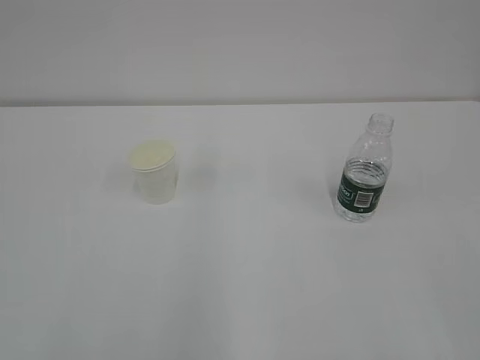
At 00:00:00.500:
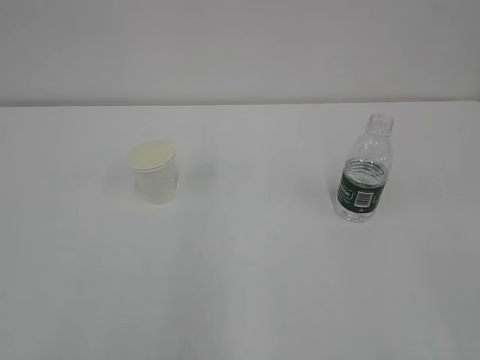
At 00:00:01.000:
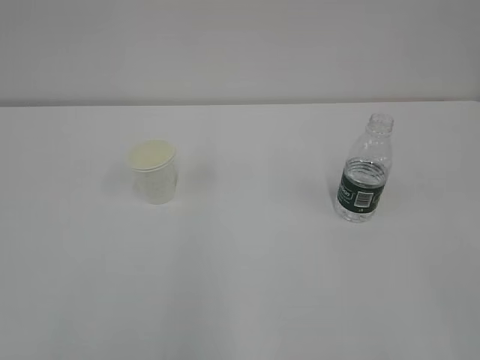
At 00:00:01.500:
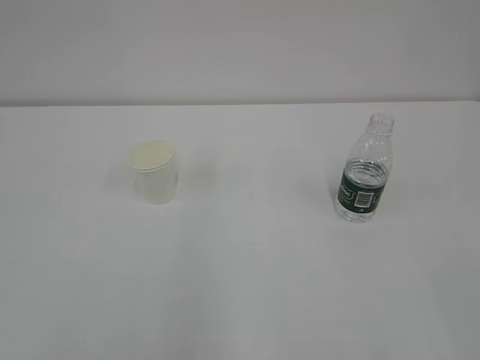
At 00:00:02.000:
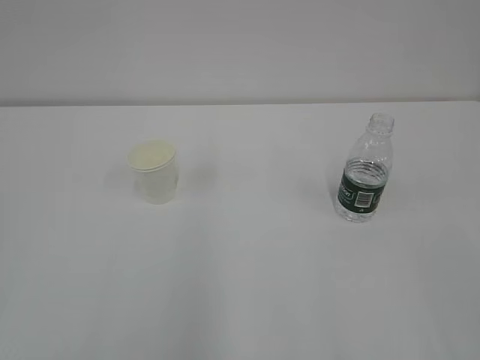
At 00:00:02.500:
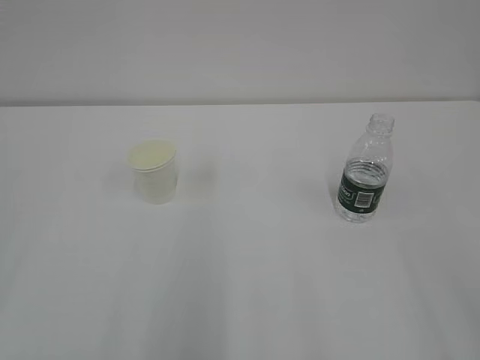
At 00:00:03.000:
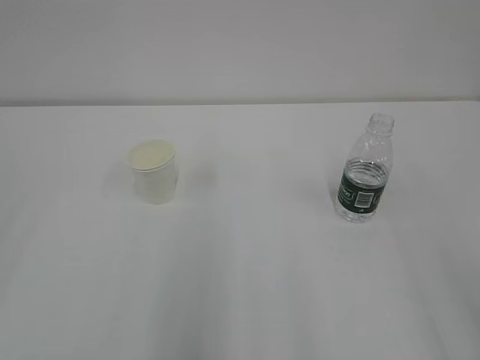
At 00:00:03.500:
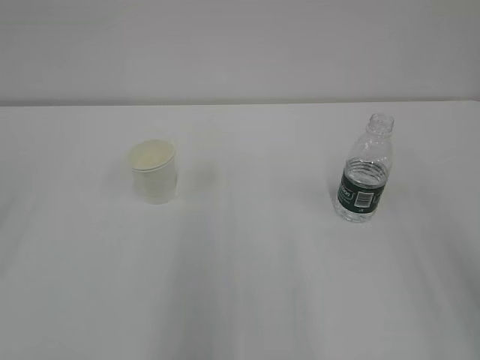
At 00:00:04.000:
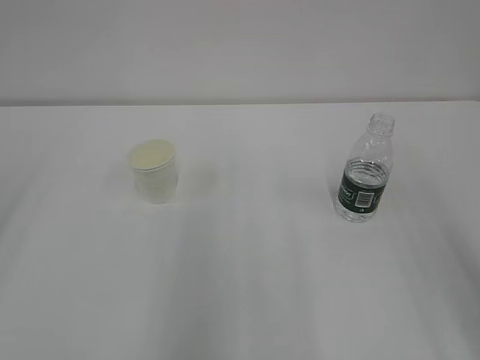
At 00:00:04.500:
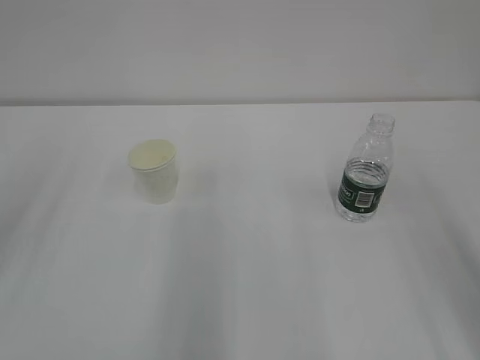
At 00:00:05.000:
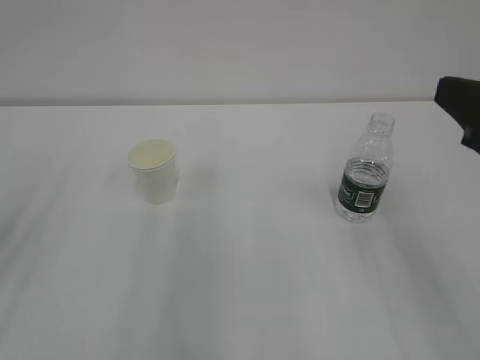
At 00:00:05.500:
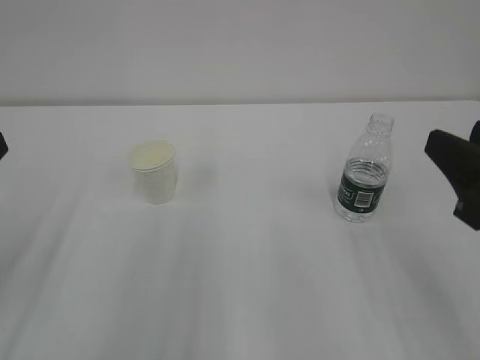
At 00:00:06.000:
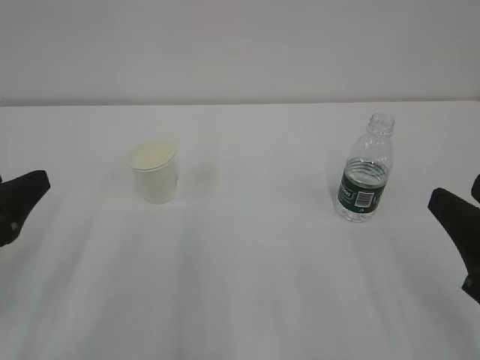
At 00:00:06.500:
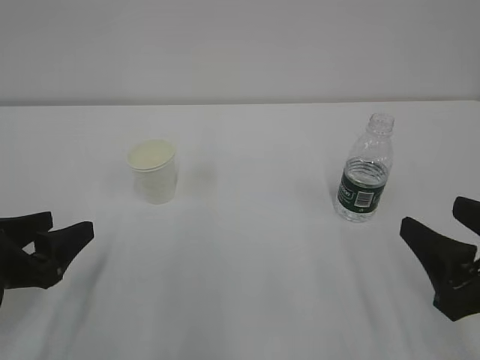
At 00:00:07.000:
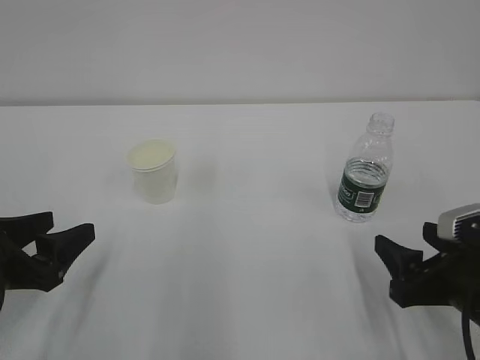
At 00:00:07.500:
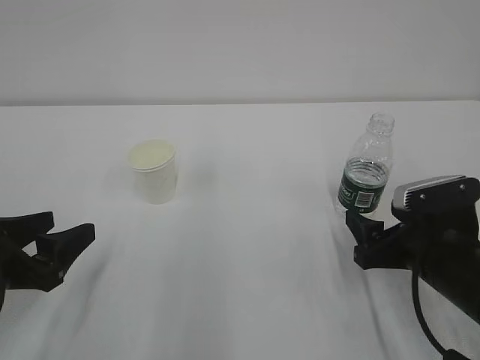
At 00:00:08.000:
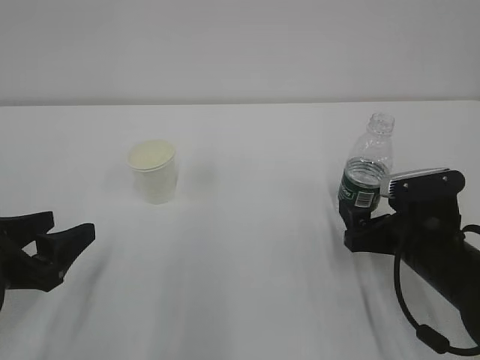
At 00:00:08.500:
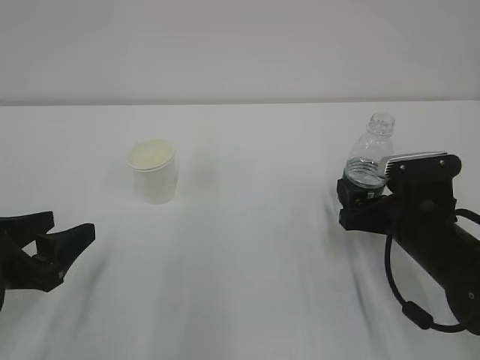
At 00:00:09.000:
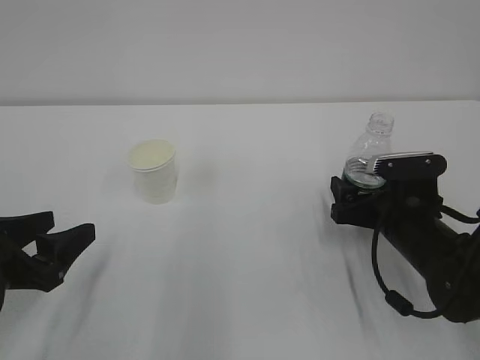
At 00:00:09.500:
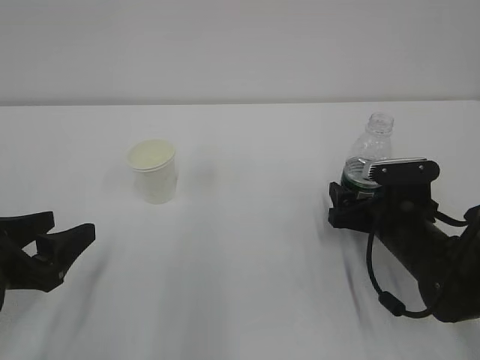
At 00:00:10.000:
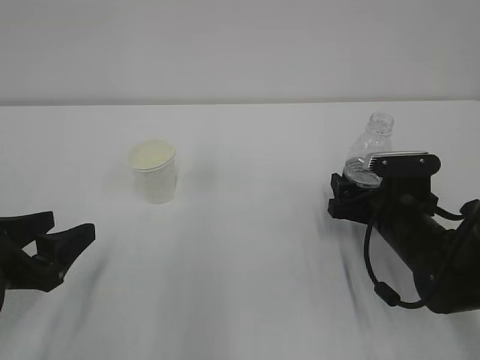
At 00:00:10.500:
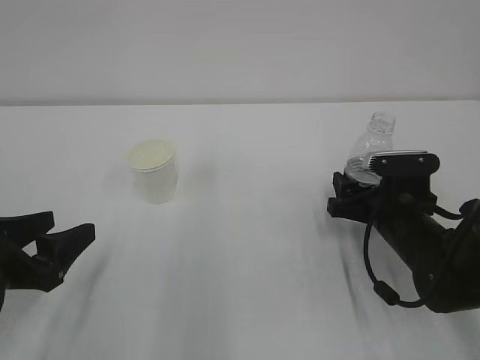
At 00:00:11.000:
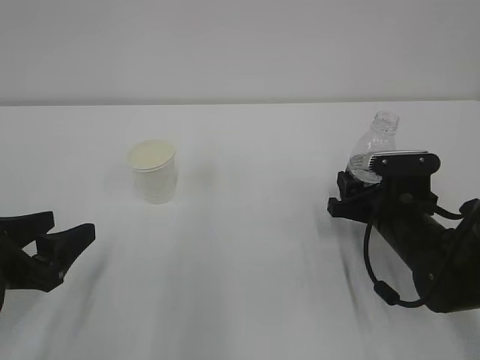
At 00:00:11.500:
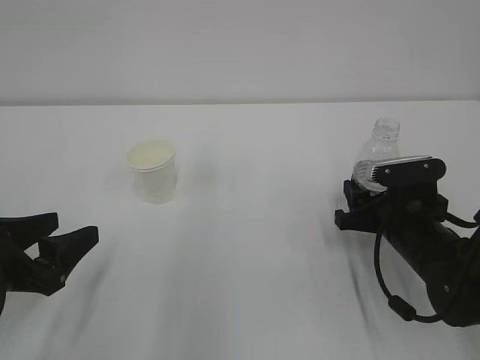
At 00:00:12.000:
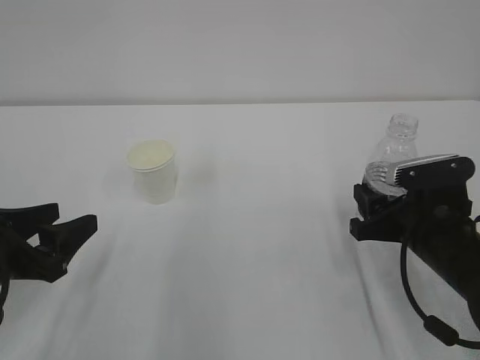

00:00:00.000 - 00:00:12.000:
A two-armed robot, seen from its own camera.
00:00:04.000 - 00:00:06.000: Both grippers travel together downward, about 15 cm. The left gripper opens up.
00:00:06.000 - 00:00:08.000: The right gripper heads forward and downward, covering roughly 20 cm, and opens; the left gripper is displaced downward by roughly 5 cm.
00:00:08.000 - 00:00:10.000: The right gripper heads forward, covering about 5 cm.
00:00:10.000 - 00:00:12.000: The right gripper moves approximately 5 cm, and closes up.

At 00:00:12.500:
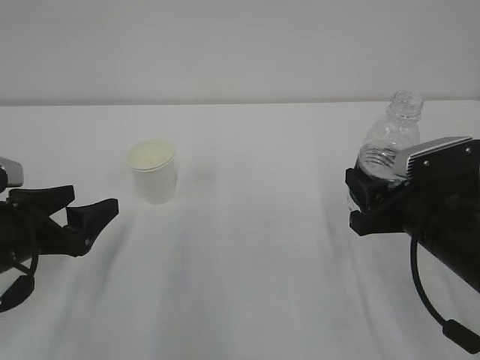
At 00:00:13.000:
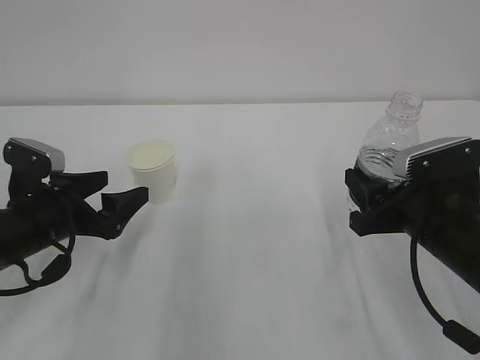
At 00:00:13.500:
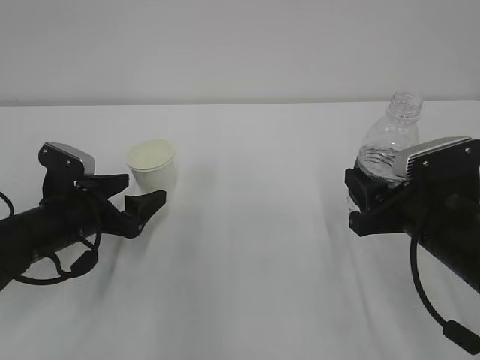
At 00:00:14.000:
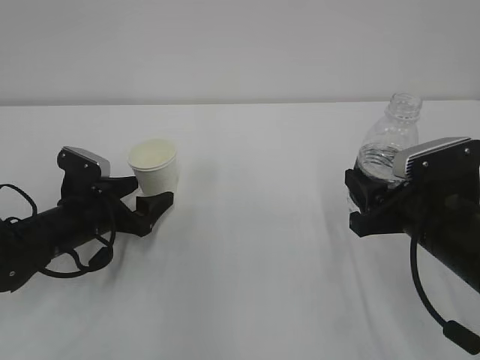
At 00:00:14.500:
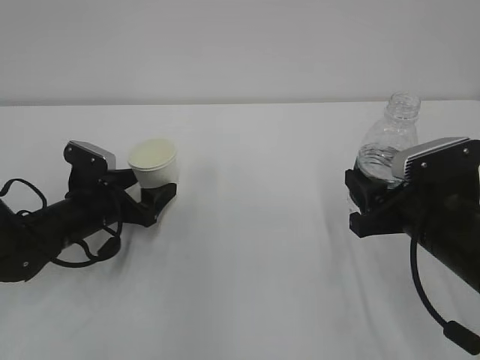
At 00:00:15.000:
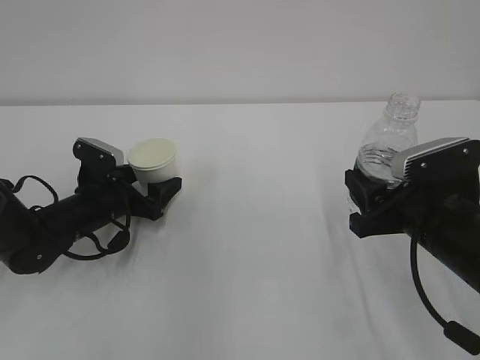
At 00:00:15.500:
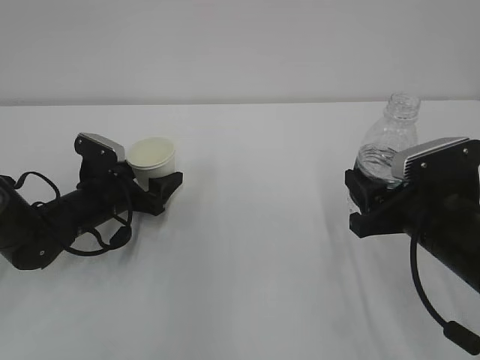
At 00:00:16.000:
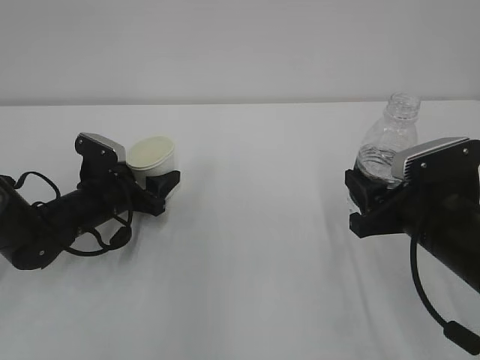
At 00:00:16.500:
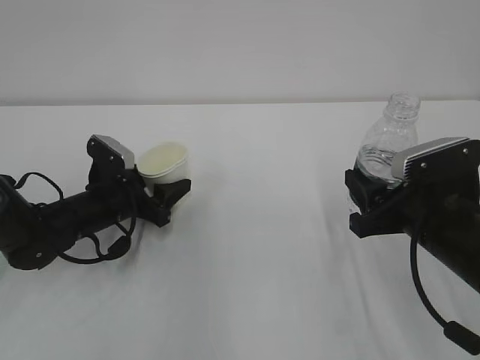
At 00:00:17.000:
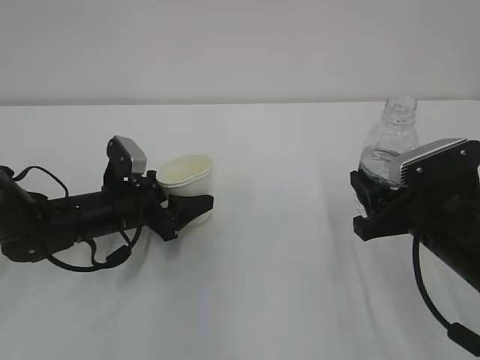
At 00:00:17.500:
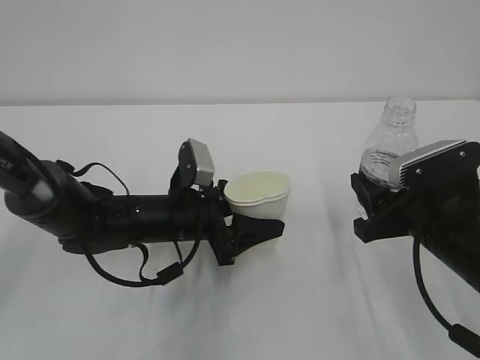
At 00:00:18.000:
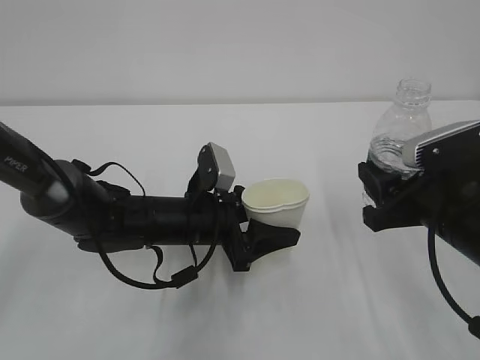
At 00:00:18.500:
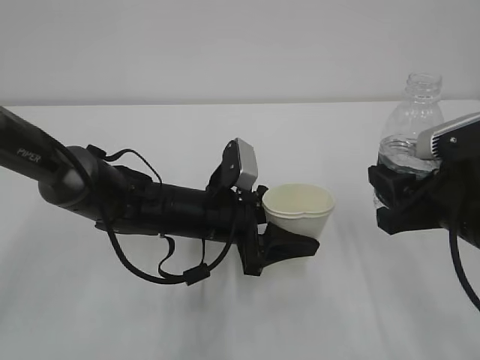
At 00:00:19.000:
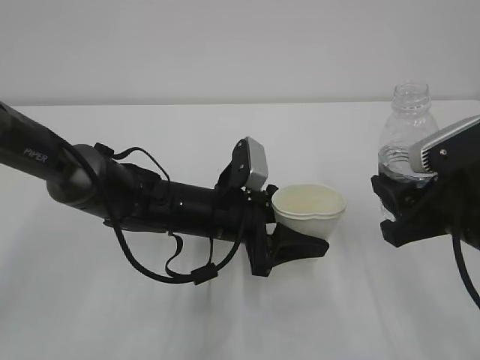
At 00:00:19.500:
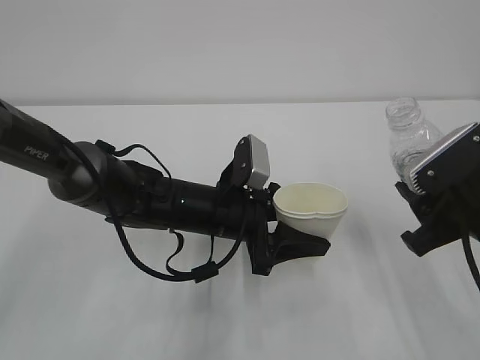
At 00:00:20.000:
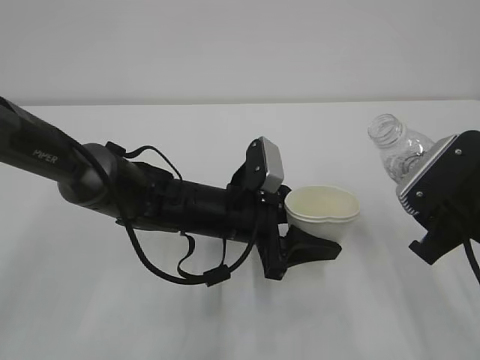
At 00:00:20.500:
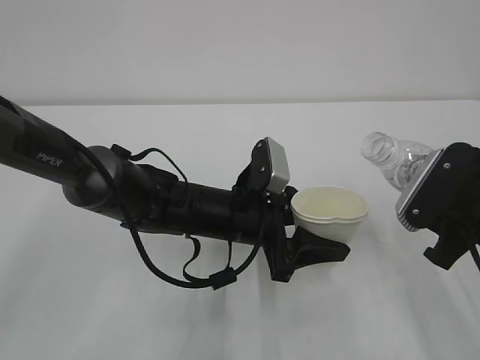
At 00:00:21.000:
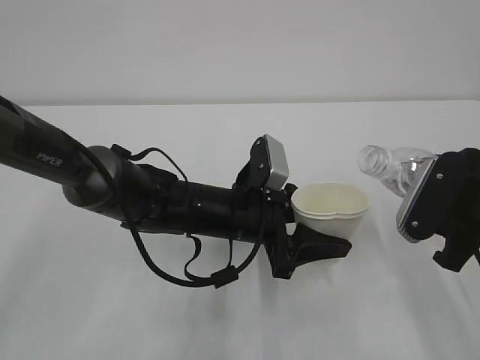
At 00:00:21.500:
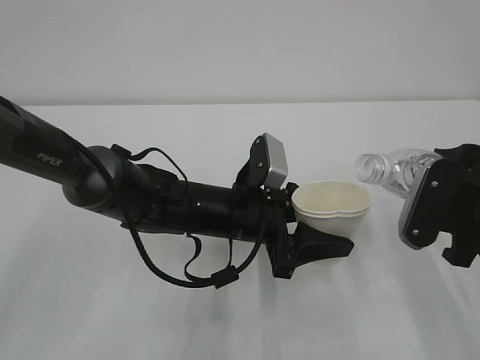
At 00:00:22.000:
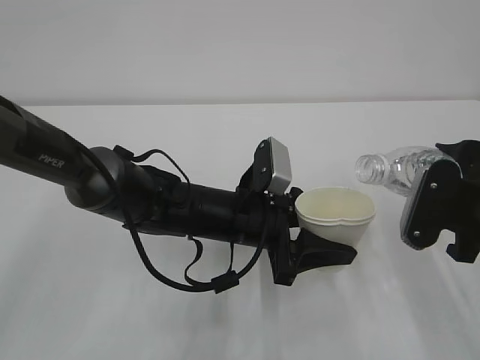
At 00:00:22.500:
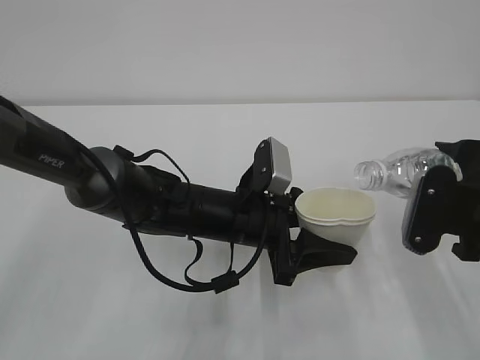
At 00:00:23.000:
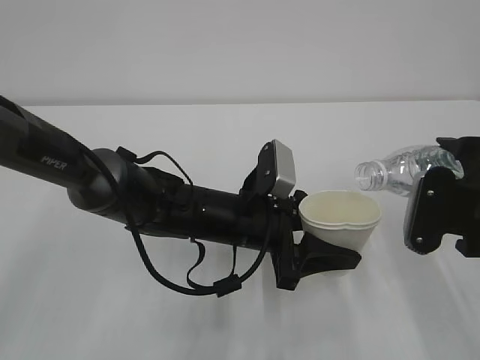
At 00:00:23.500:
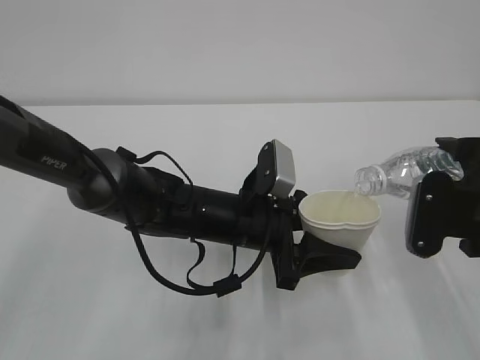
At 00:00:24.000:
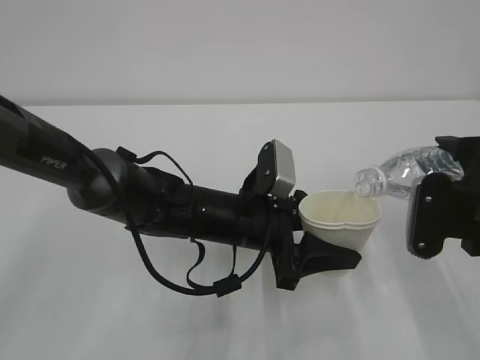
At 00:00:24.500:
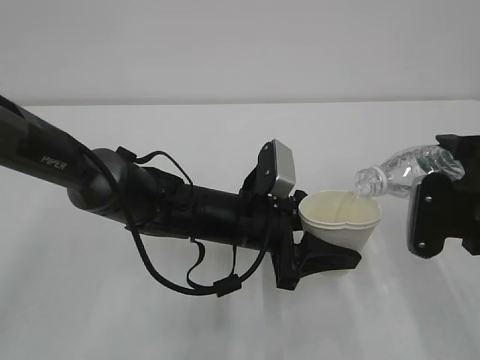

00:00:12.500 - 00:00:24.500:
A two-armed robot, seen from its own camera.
00:00:12.500 - 00:00:14.500: The left gripper travels forward and downward by approximately 15 cm.
00:00:14.500 - 00:00:16.500: The left gripper closes.
00:00:16.500 - 00:00:18.500: The right gripper changes place by about 5 cm; the left gripper heads to the right, covering roughly 15 cm.
00:00:22.500 - 00:00:24.500: The grippers make only small movements.

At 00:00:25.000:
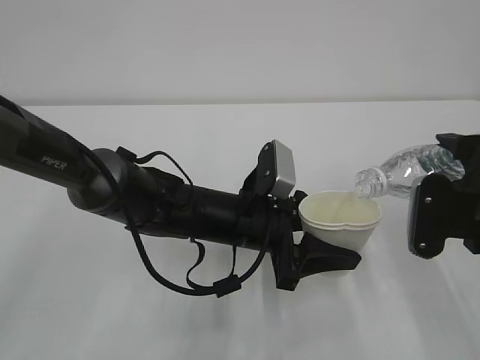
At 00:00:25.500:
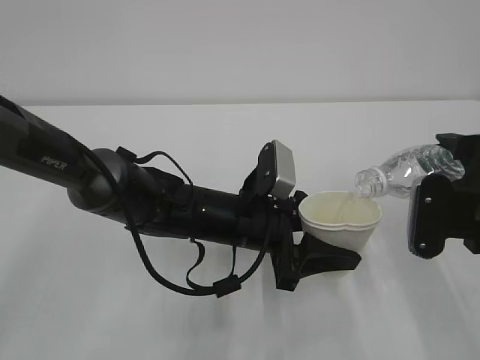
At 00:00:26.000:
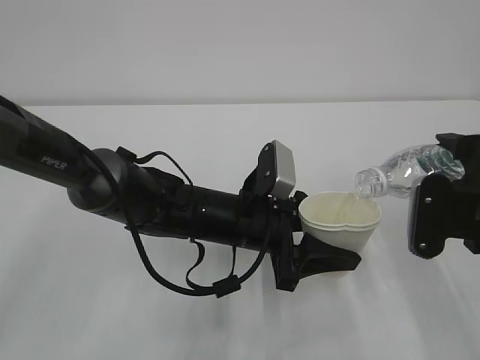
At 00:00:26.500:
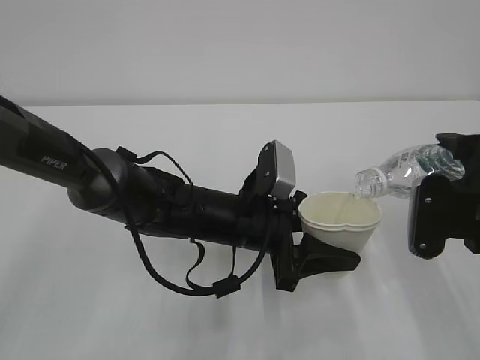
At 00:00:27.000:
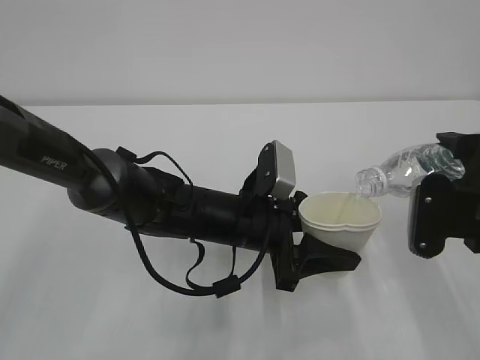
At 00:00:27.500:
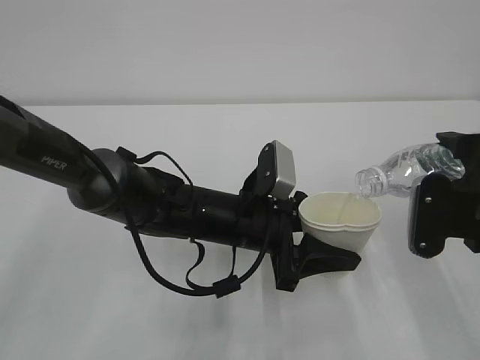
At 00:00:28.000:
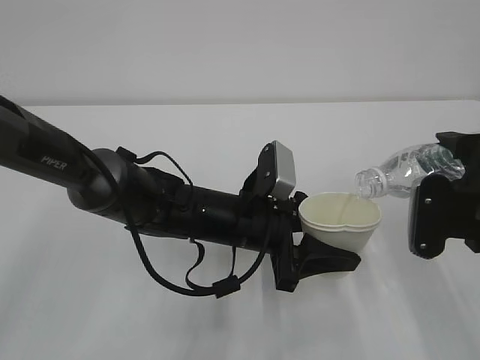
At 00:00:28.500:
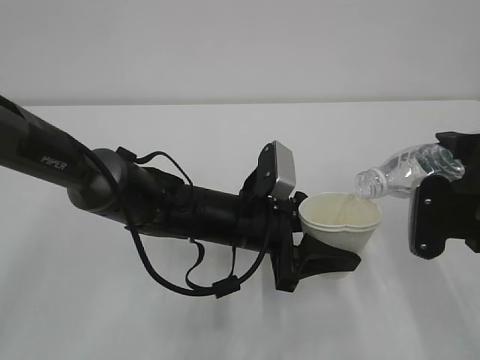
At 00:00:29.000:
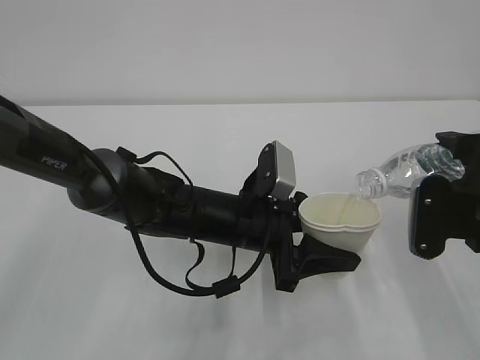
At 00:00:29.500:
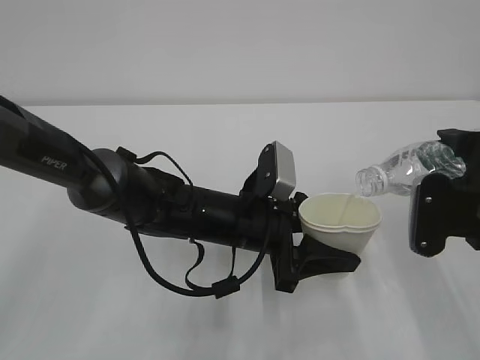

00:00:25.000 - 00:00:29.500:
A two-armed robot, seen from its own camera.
00:00:25.000 - 00:00:29.500: Both grippers stay put.
